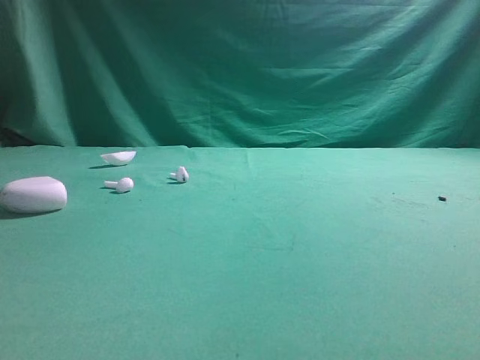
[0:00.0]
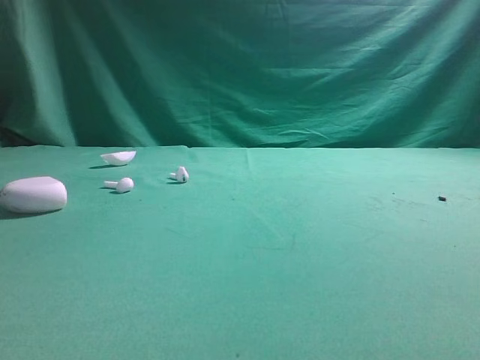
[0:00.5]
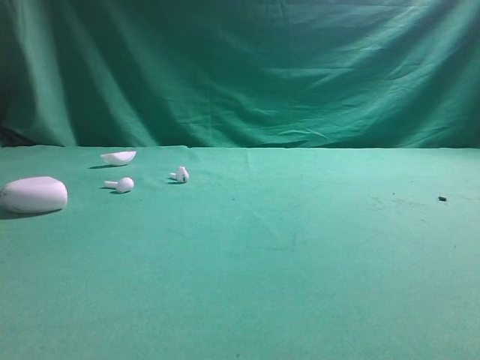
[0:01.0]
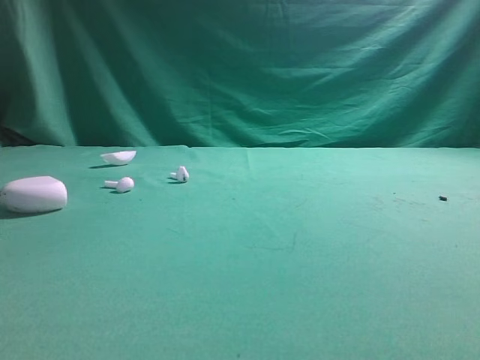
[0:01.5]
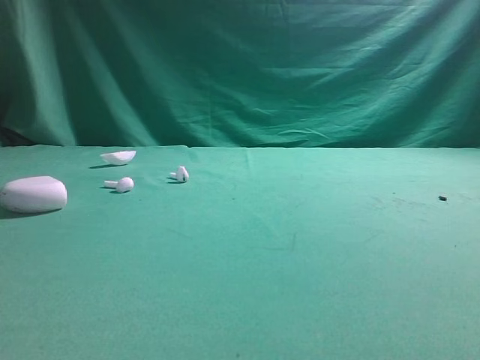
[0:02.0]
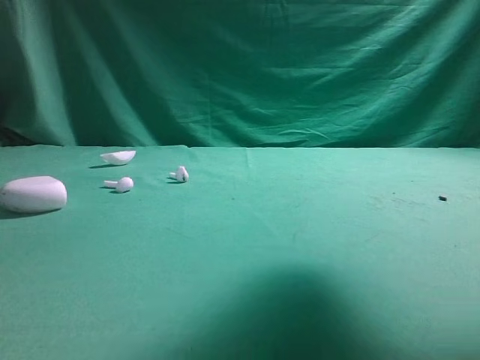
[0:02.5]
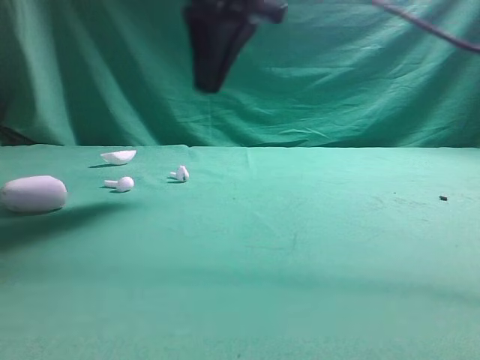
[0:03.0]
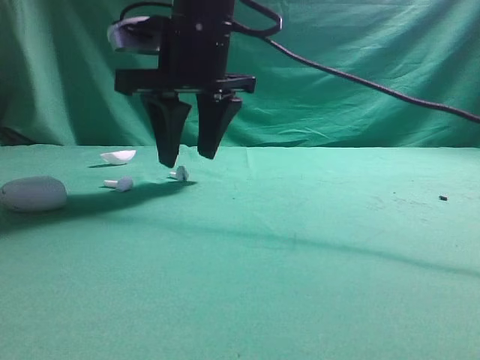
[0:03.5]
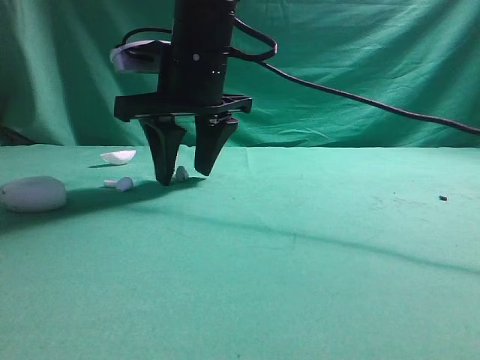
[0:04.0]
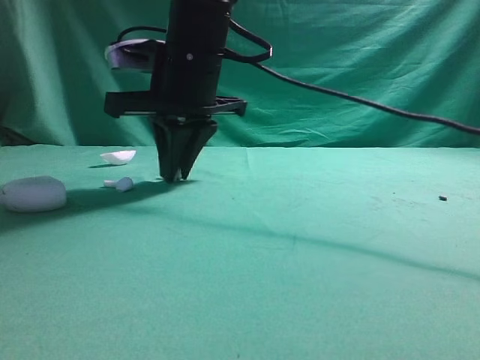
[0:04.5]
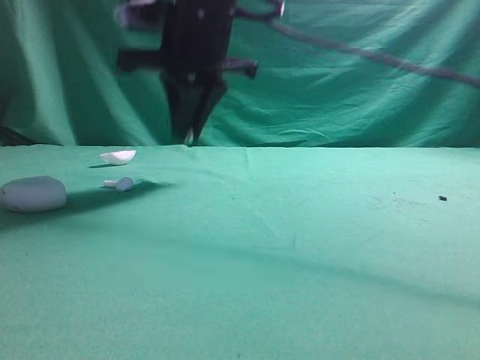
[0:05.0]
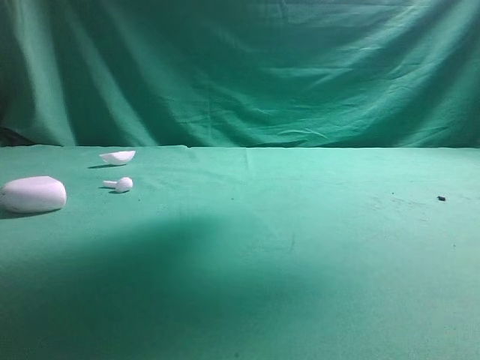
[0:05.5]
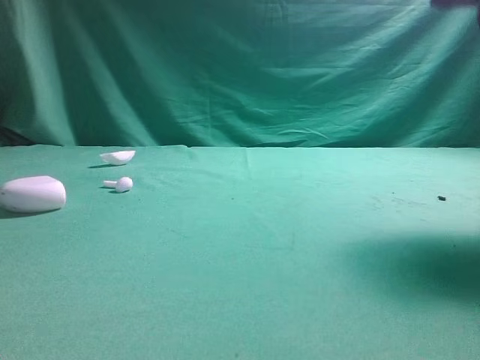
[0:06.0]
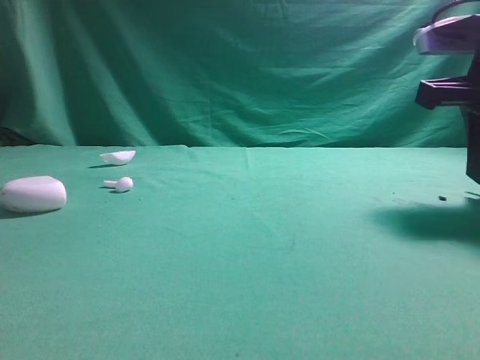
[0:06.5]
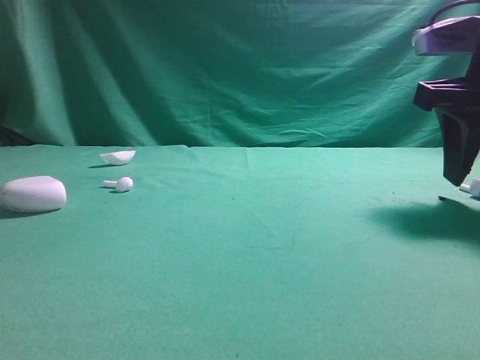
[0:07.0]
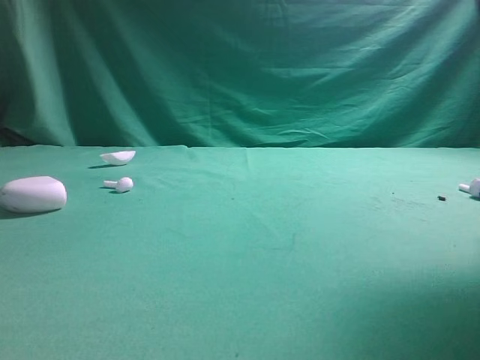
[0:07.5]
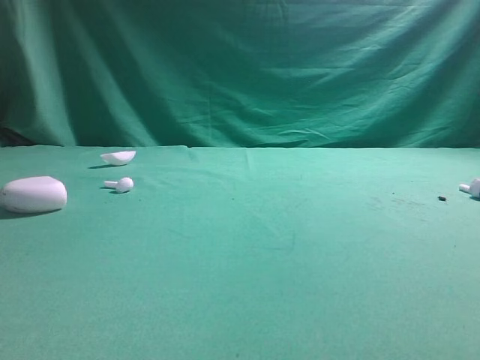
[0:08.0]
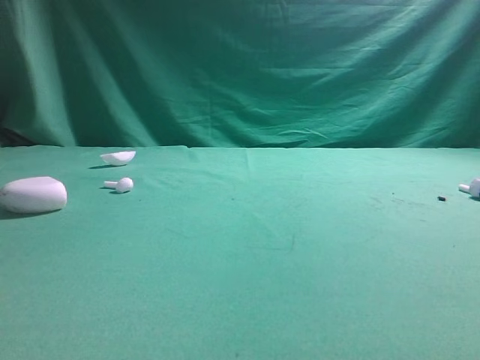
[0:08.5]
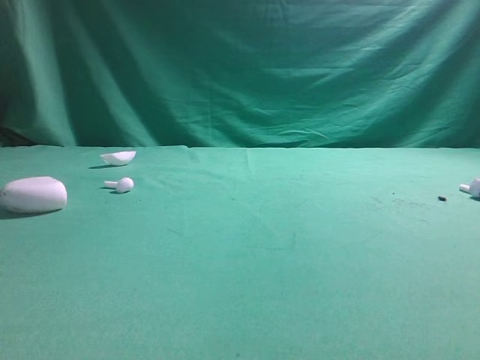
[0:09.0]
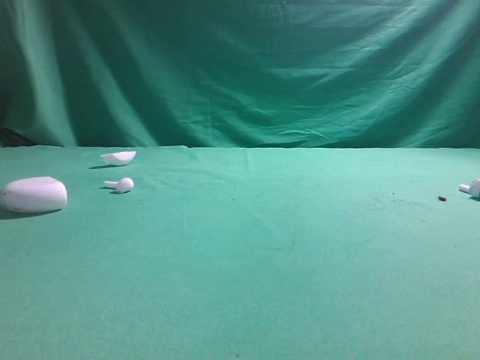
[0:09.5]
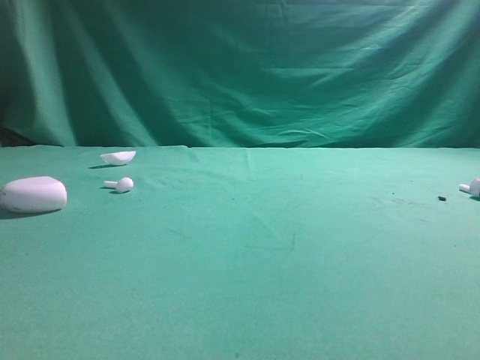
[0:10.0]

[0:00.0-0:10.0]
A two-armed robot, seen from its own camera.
Step, 0:00.0 to 0:04.5: Grasp the Bluetooth earbud.
Step, 0:05.0 to 0:07.0: Place bluetooth earbud on the right side of the table.
